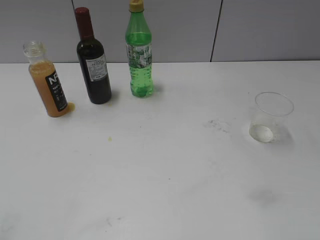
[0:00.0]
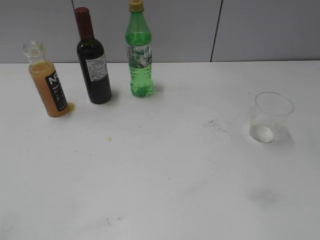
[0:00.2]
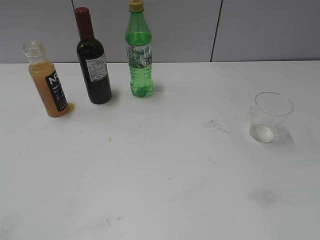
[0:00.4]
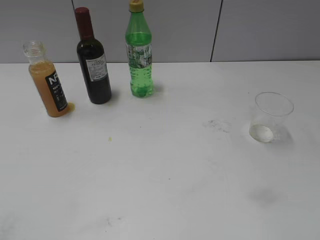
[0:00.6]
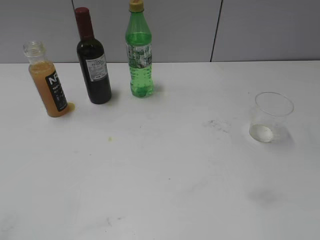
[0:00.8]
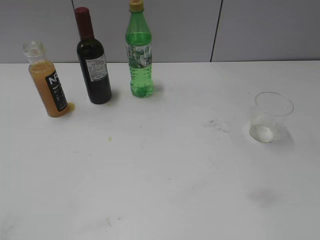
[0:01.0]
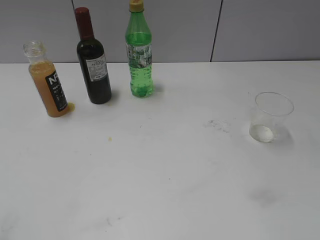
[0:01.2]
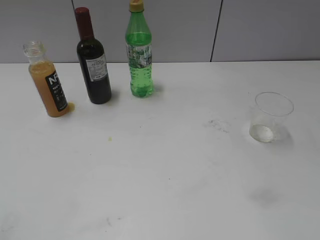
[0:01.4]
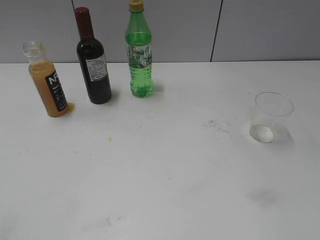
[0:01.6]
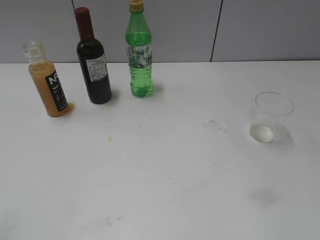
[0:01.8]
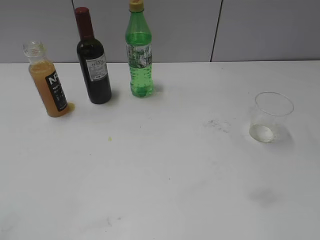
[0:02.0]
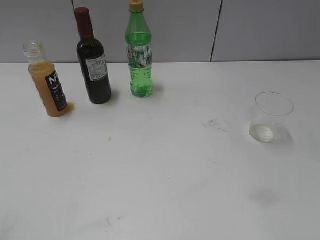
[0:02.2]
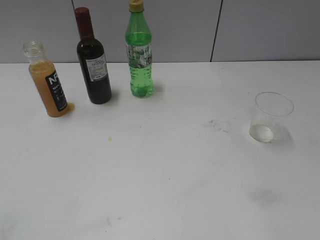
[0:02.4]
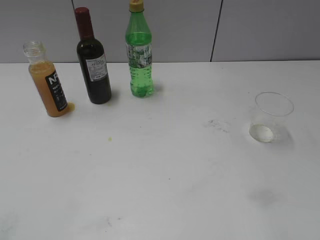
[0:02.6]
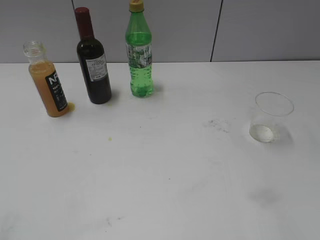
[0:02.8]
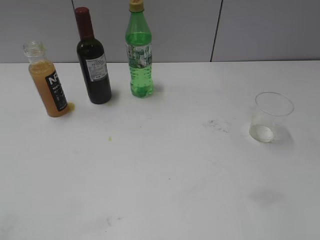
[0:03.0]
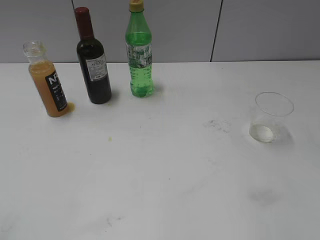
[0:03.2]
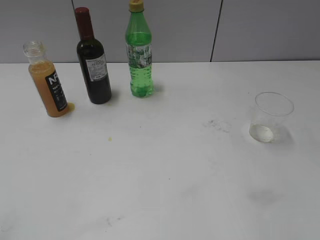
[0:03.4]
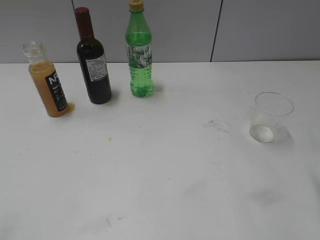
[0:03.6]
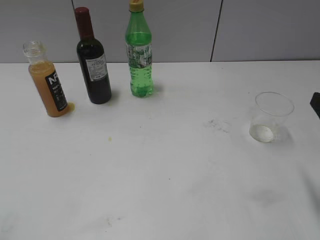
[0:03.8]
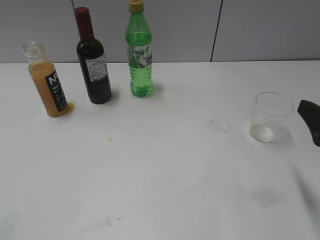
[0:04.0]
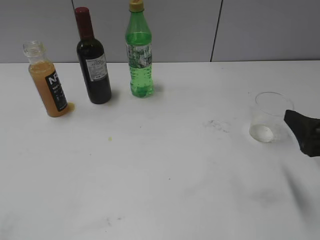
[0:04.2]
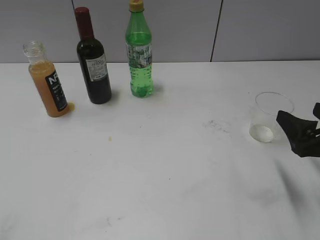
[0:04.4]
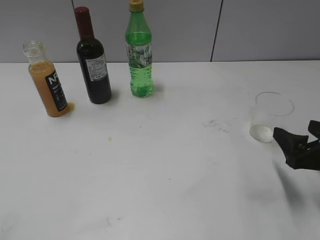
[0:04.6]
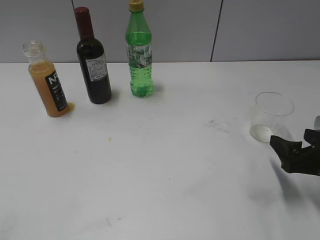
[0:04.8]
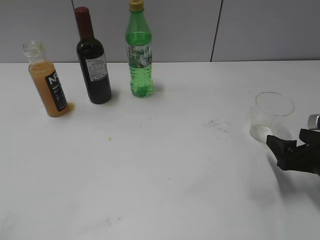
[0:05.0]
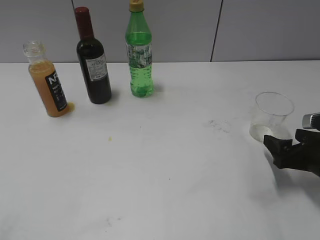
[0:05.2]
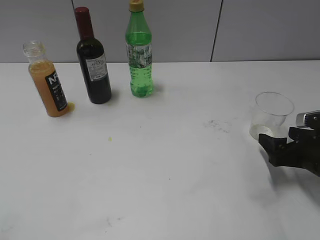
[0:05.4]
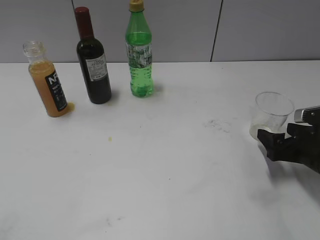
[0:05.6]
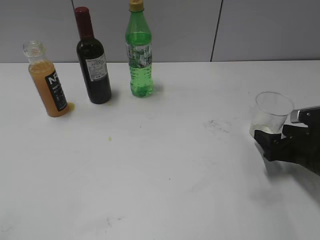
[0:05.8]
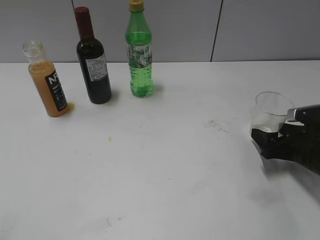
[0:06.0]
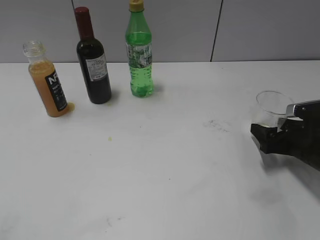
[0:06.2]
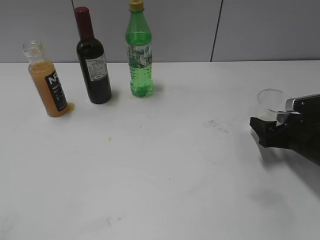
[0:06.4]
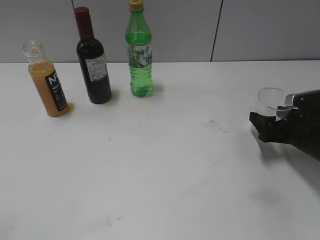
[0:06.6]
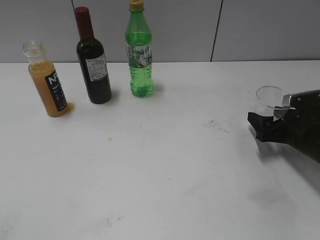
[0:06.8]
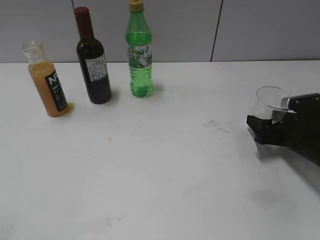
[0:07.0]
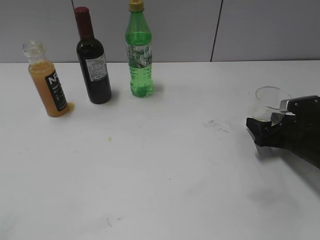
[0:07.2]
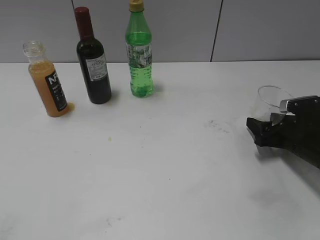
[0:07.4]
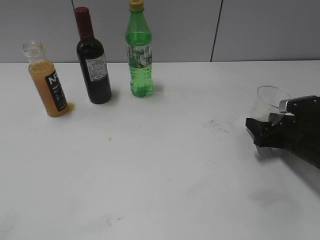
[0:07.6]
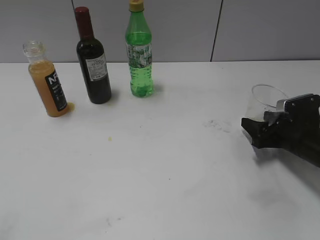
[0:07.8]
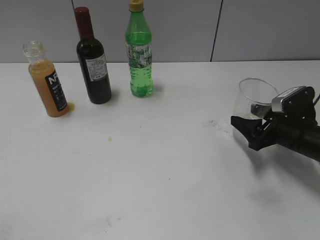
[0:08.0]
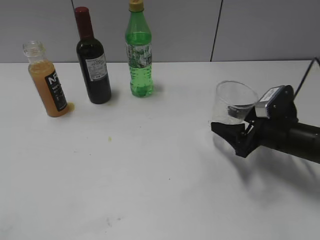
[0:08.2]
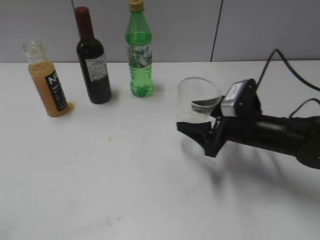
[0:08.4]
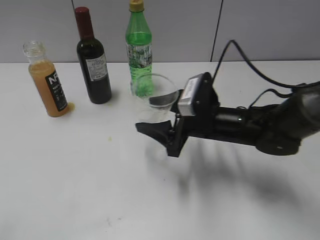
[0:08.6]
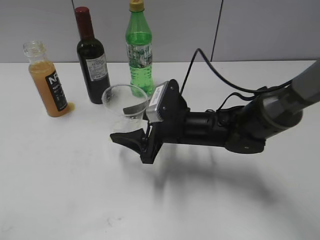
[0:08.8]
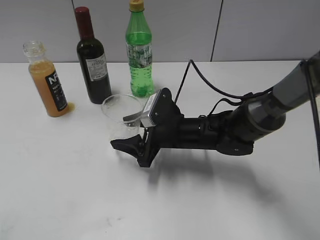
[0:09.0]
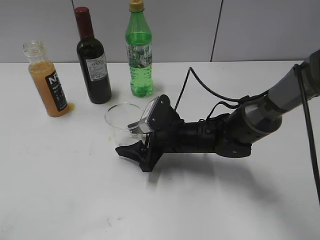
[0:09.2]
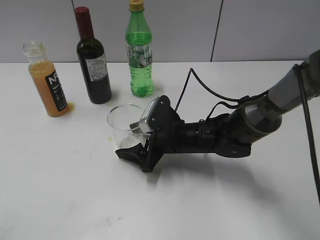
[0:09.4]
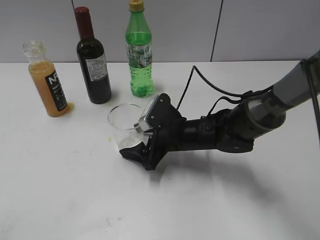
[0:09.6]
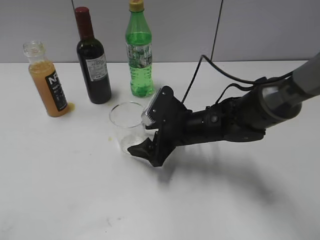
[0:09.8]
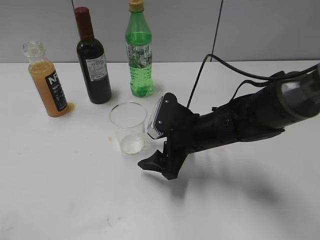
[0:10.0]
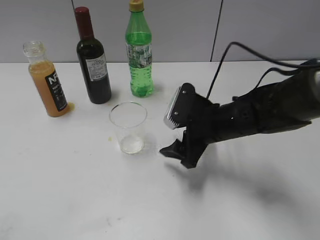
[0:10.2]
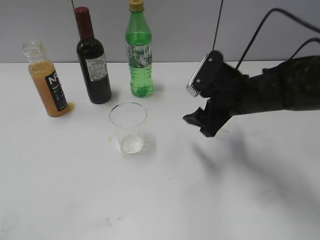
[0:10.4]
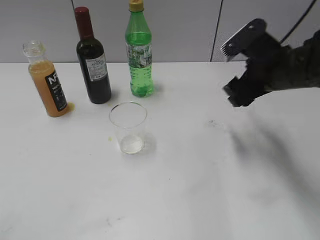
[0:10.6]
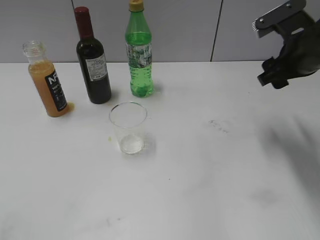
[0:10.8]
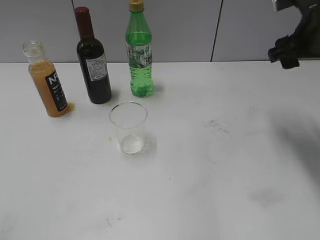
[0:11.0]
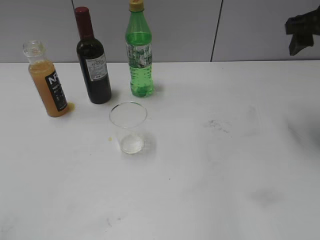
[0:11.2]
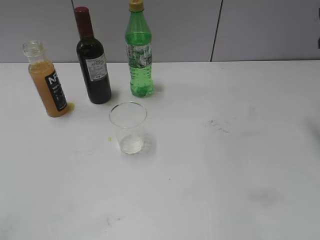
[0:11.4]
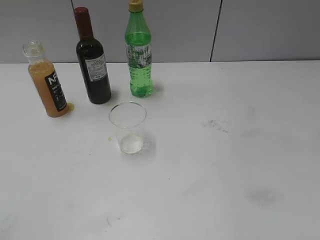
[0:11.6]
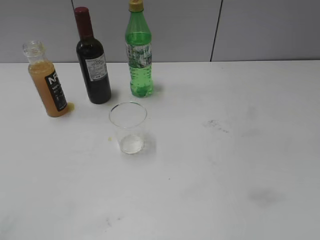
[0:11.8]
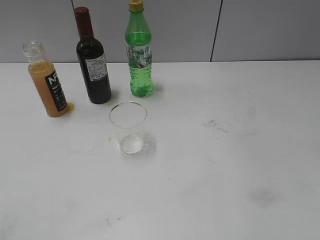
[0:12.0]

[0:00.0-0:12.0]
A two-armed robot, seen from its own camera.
Step, 0:03.8 to 0:07.4: Grasp the transparent cup with right gripper.
Step, 0:07.8 to 0:09.8: Place the transparent cup on the table with right gripper.
0:03.0 to 0:04.4: The right gripper travels downward and forward by approximately 15 cm, and opens up.
0:04.4 to 0:06.0: The right gripper heads downward and forward, covering about 10 cm.
0:06.0 to 0:07.6: The right gripper closes its fingers.
0:07.6 to 0:09.0: The right gripper moves to the left, about 25 cm.
0:09.0 to 0:10.4: The right gripper is displaced to the right and upward by some 15 cm, and opens up.
0:10.4 to 0:12.0: The right gripper is displaced to the right and upward by approximately 25 cm, and closes its fingers.

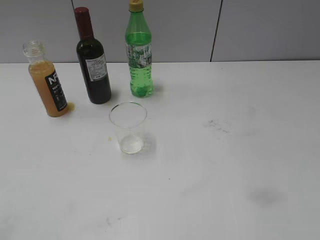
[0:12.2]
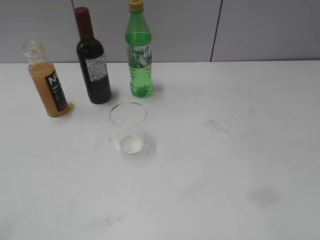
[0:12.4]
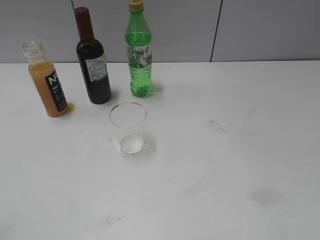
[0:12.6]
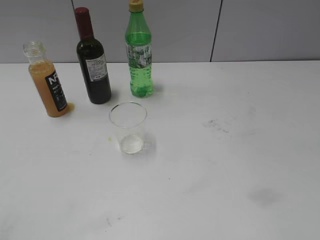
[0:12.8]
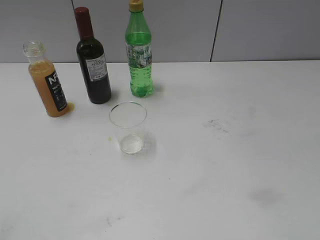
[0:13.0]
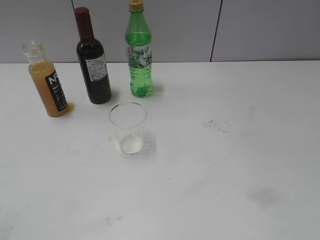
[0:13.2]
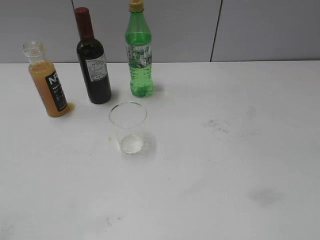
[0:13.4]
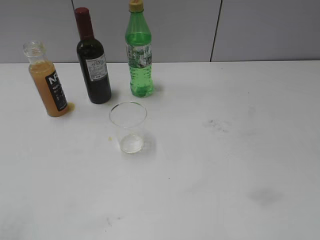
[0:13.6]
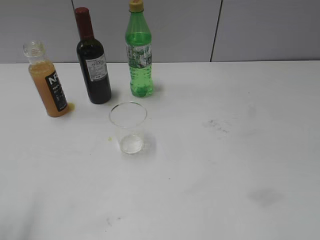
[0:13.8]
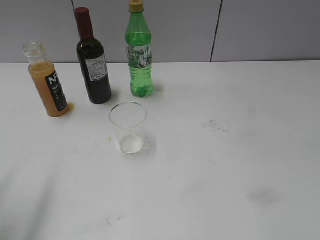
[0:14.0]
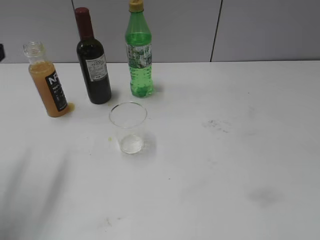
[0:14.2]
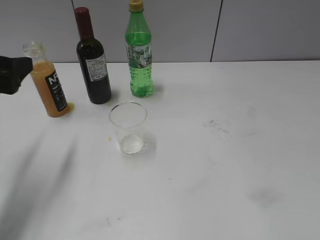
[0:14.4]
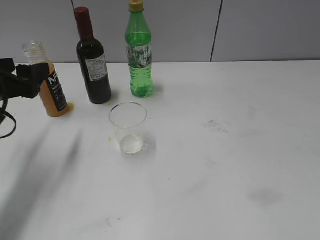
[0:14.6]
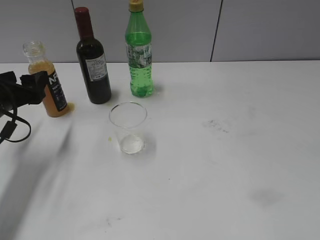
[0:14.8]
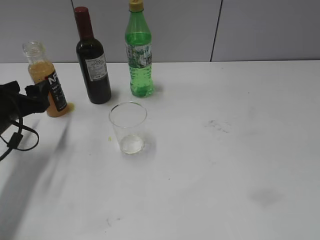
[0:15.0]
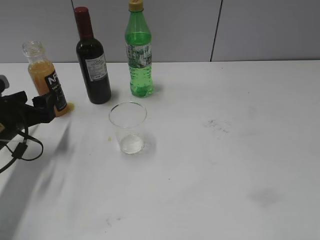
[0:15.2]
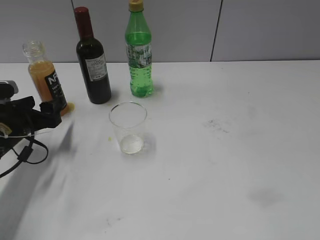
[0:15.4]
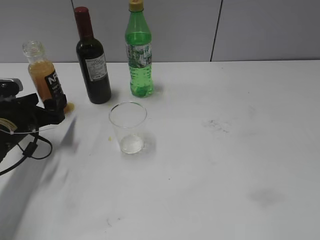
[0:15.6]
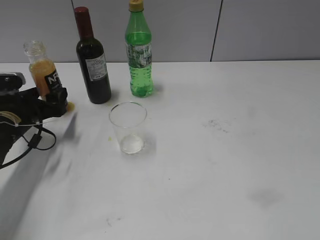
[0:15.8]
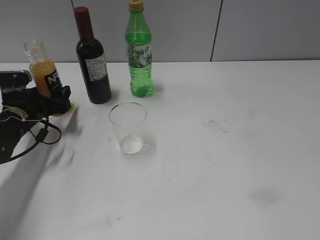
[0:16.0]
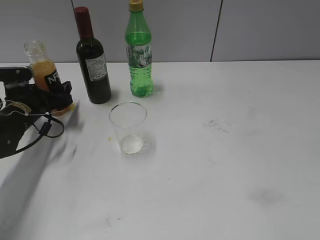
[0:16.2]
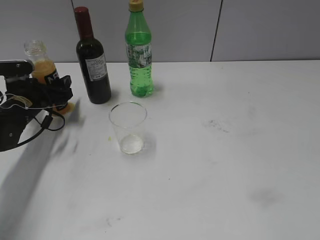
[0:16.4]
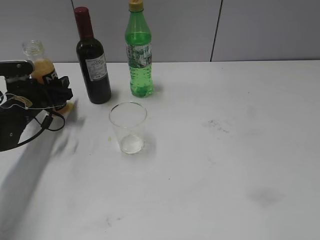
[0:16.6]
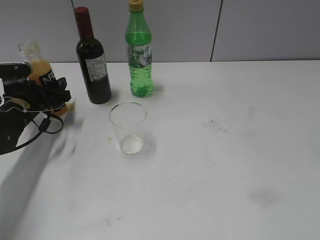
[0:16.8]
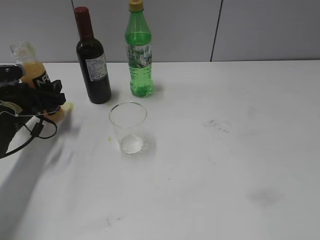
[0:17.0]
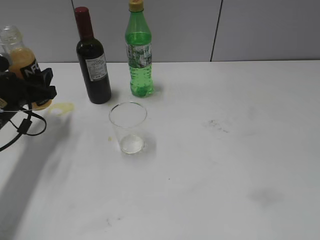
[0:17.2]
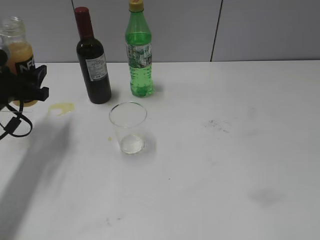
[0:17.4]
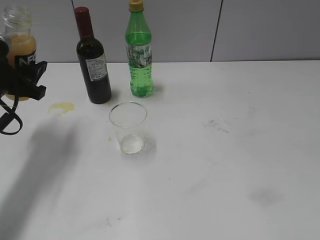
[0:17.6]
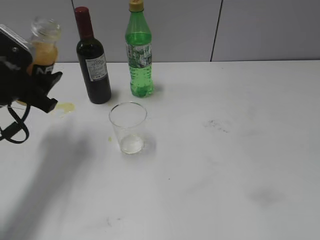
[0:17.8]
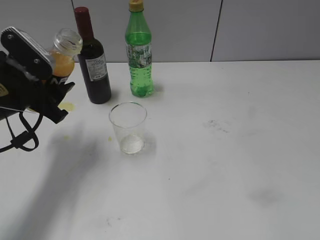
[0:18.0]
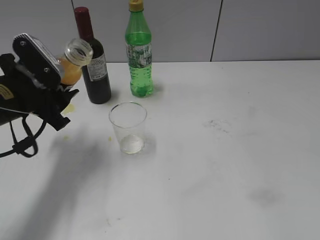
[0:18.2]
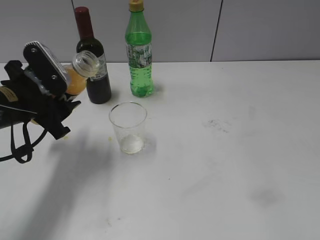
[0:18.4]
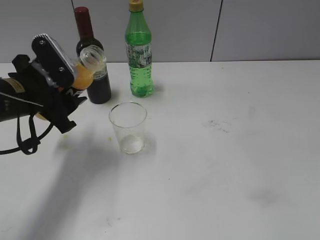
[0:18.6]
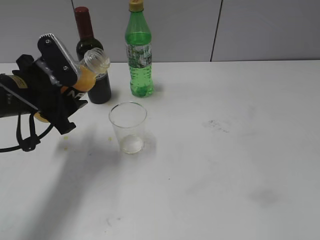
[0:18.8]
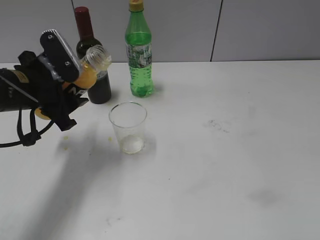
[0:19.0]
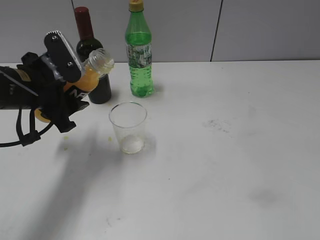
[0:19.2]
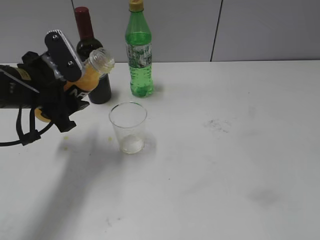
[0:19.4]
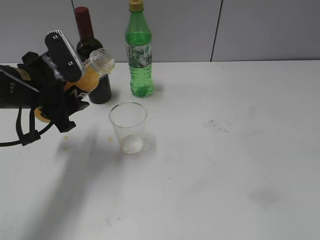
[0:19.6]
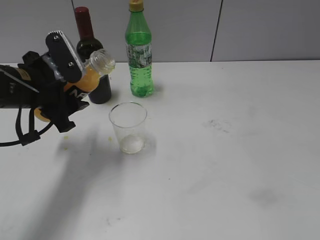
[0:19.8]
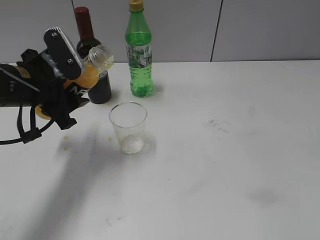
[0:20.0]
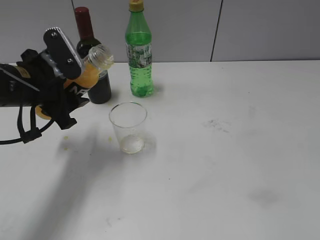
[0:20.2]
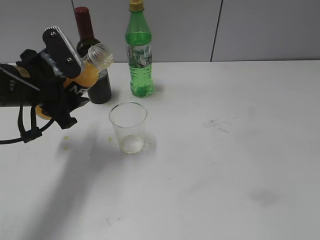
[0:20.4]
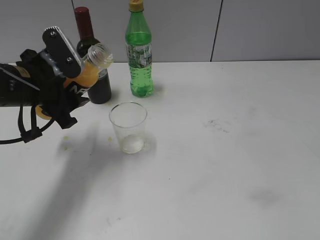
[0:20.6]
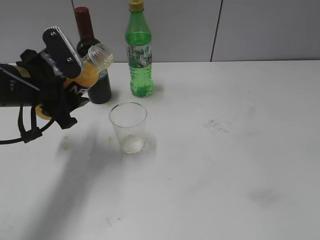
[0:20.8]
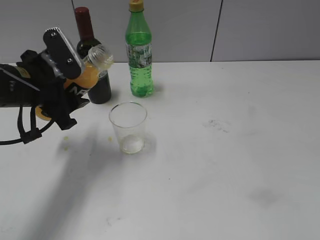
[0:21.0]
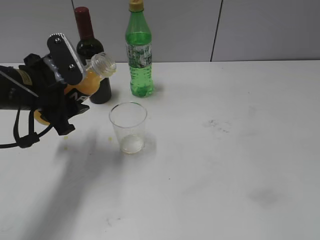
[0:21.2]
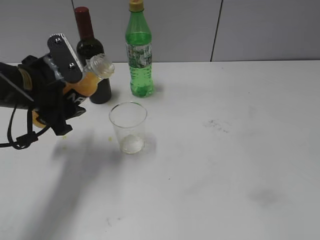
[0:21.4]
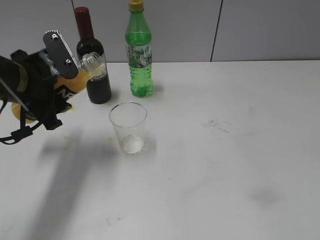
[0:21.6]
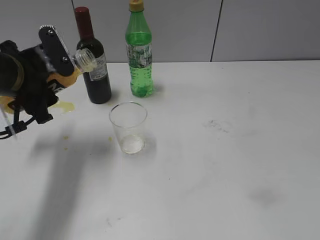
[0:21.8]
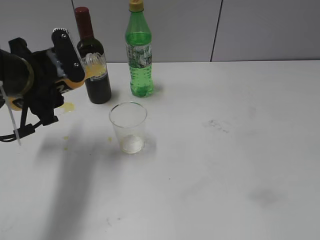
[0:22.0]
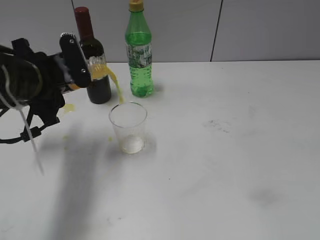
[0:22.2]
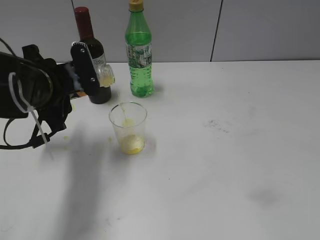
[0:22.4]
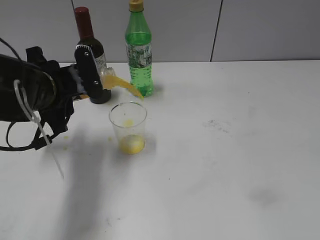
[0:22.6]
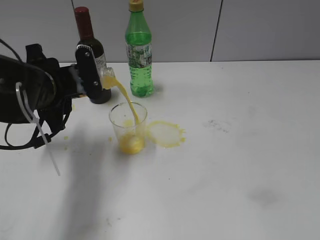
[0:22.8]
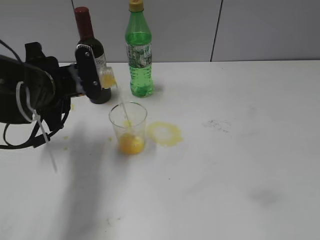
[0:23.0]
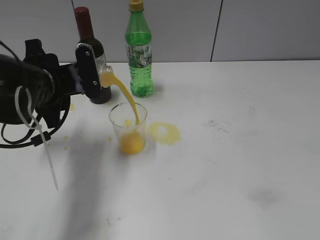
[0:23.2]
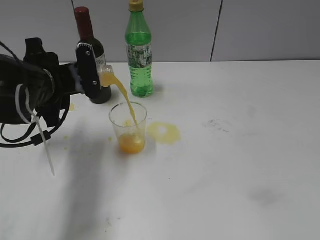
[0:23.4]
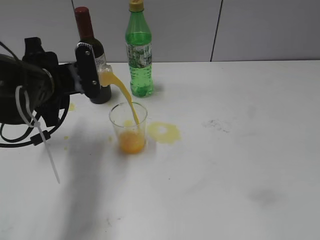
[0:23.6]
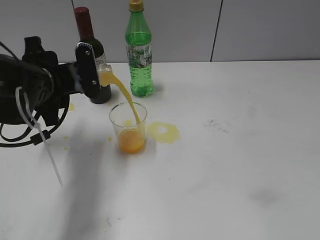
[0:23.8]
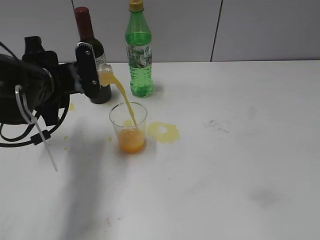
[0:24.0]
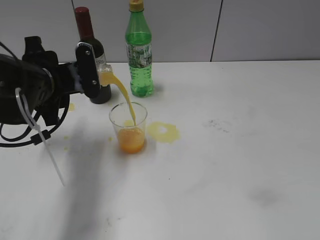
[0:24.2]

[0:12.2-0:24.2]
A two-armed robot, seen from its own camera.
Step, 0:12.2 to 0:16.4: Grasp the bottle with orange juice with left gripper.
0:13.8 to 0:15.2: The left gripper goes some 30 cm downward and forward.
0:15.2 to 0:16.6: The left gripper travels forward by about 10 cm.
0:16.6 to 0:18.2: The left gripper is displaced backward and upward by roughly 15 cm.
0:18.2 to 0:19.8: The grippers move only a little.
0:19.8 to 0:21.2: Both grippers stay put.
0:22.6 to 0:24.2: The grippers stay close to where they were, moving slightly.
